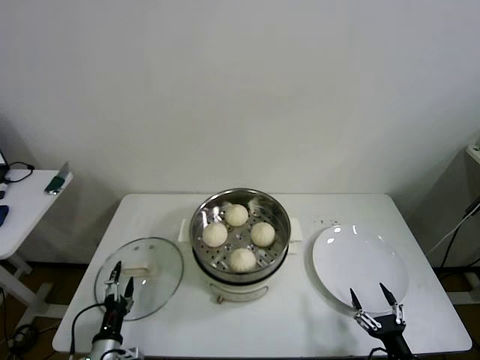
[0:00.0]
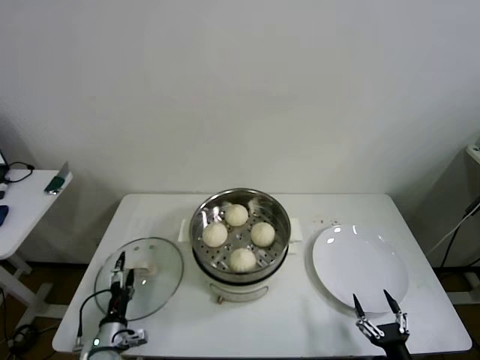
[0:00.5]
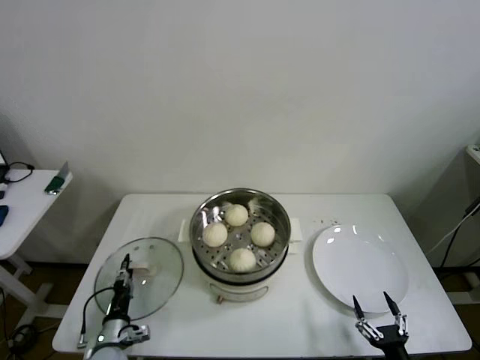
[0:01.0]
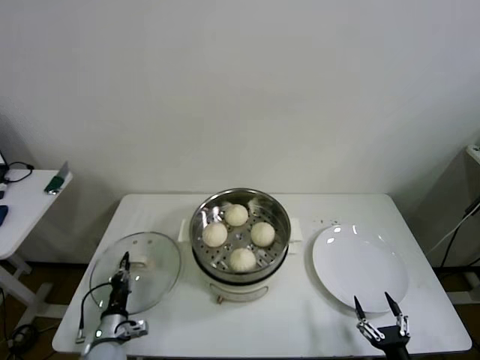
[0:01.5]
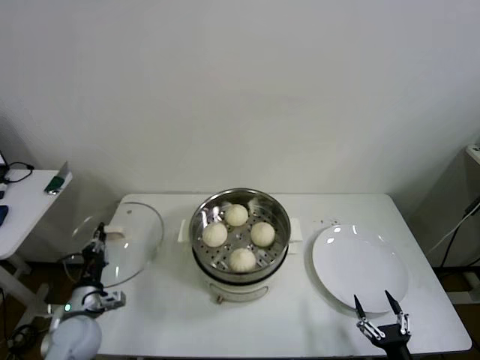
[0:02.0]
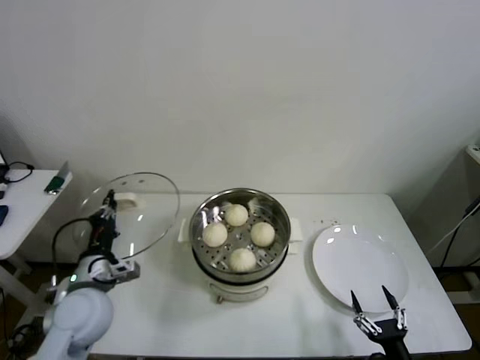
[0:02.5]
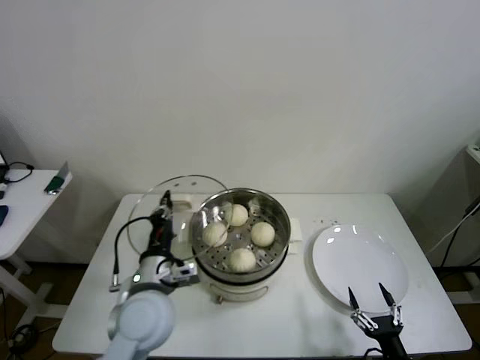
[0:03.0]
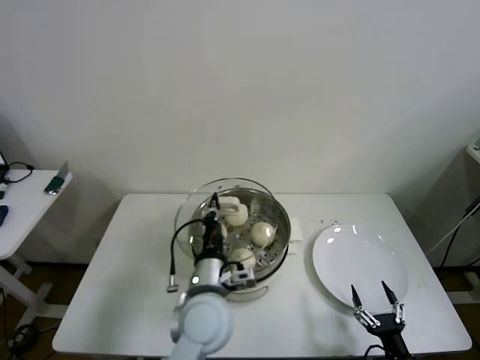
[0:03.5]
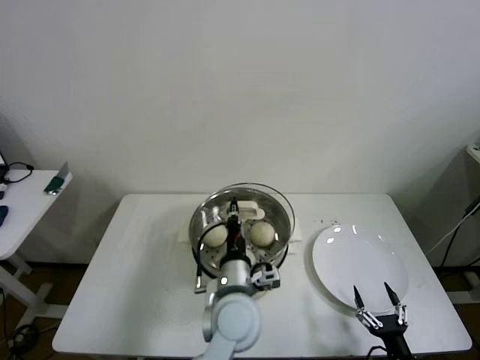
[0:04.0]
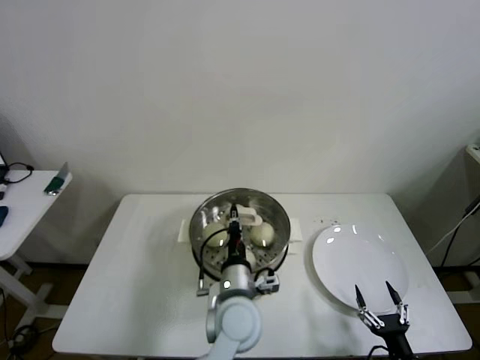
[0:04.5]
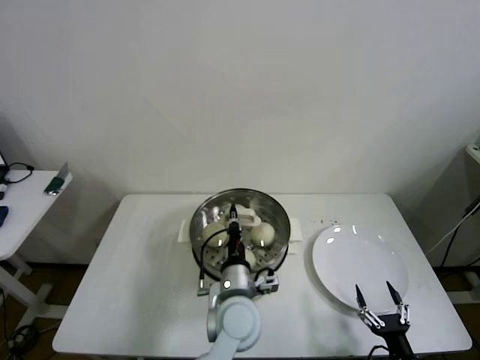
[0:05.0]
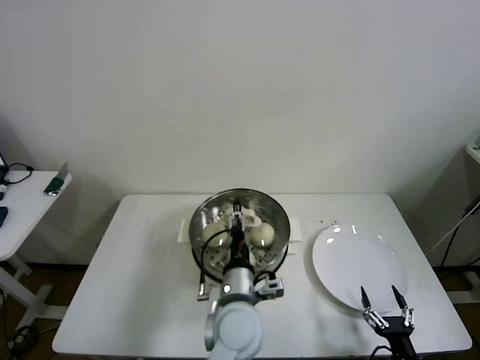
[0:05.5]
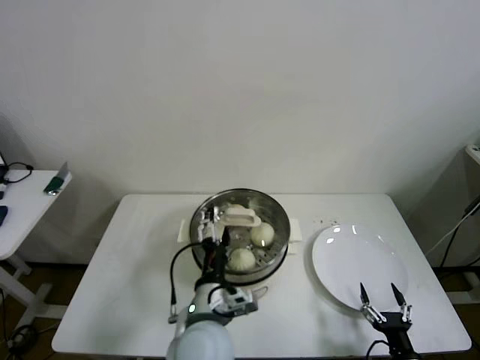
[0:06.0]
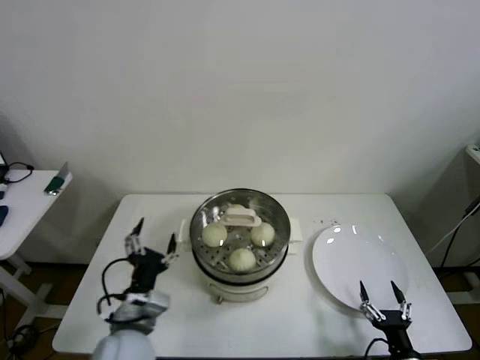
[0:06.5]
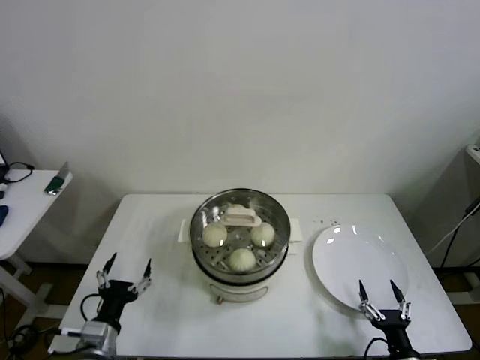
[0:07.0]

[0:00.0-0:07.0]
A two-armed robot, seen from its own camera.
Step, 1.5 to 5.5 s: Place the pot lid on the steamer with left gripper.
0.0 to 2.0 s: The left gripper moves forward and upward, approximately 10 cm, and closes its fingers.
2.0 to 3.5 s: The left gripper travels to the right and upward by approximately 30 cm.
3.5 to 5.0 s: The left gripper moves to the right and downward, roughly 10 cm.
5.0 to 7.0 s: The left gripper shifts roughly 30 cm to the left, and opens.

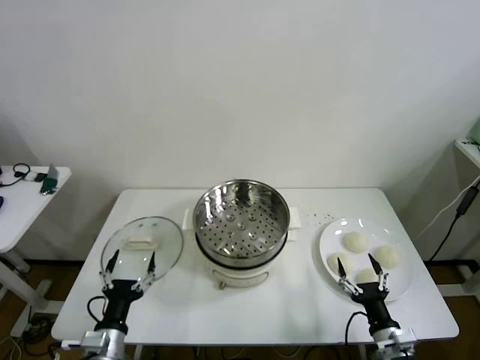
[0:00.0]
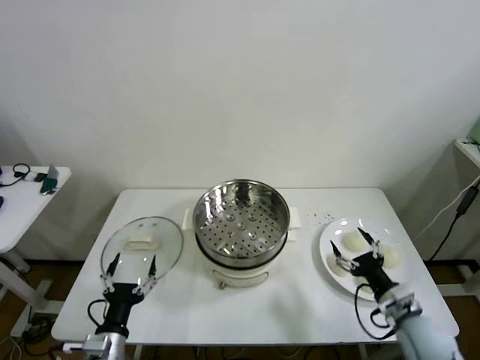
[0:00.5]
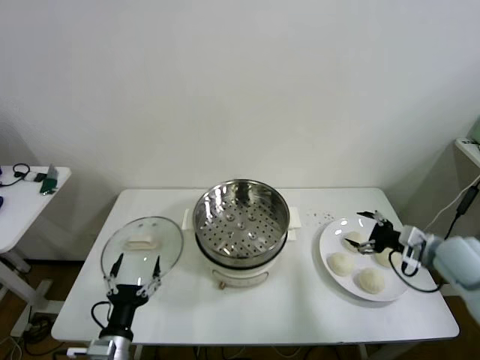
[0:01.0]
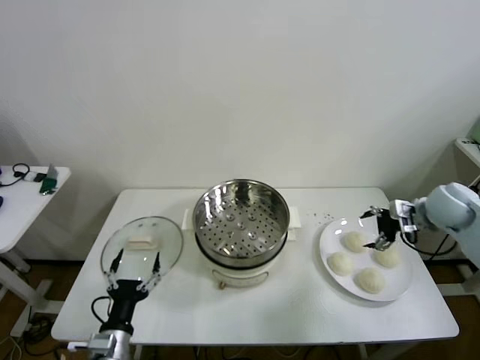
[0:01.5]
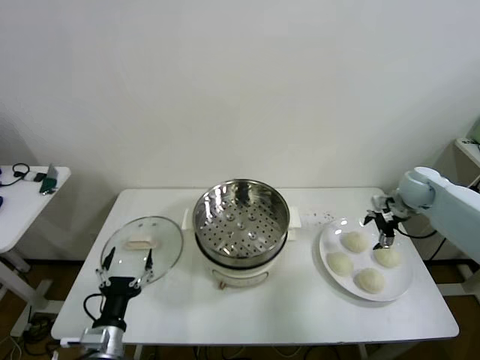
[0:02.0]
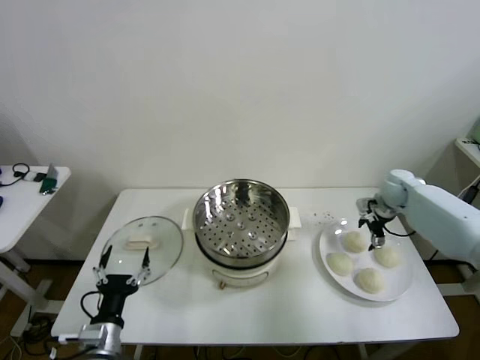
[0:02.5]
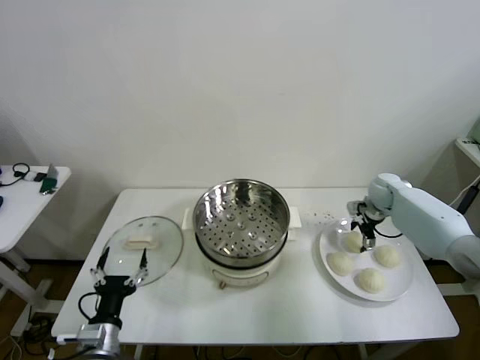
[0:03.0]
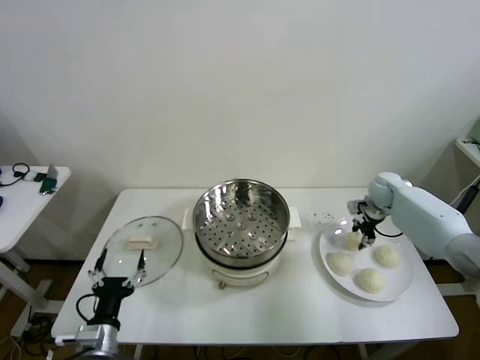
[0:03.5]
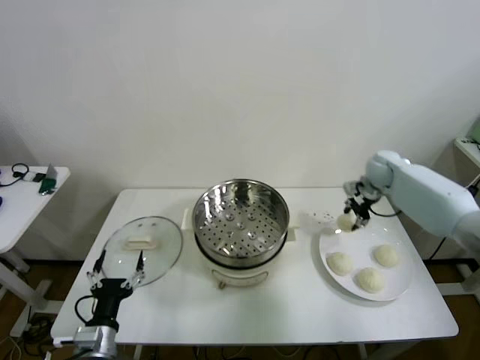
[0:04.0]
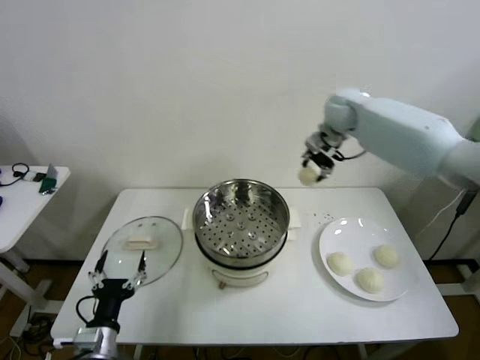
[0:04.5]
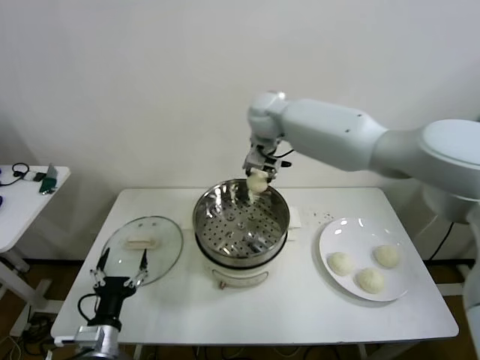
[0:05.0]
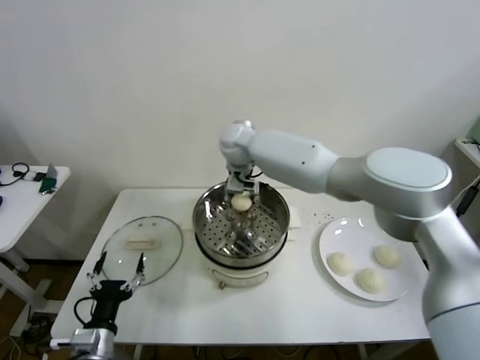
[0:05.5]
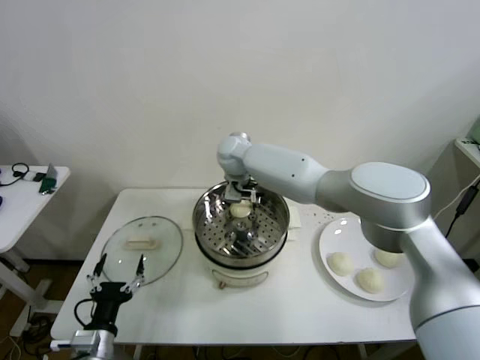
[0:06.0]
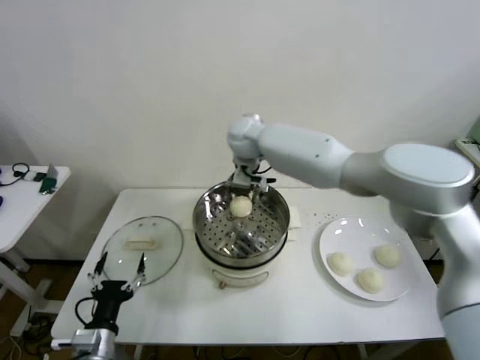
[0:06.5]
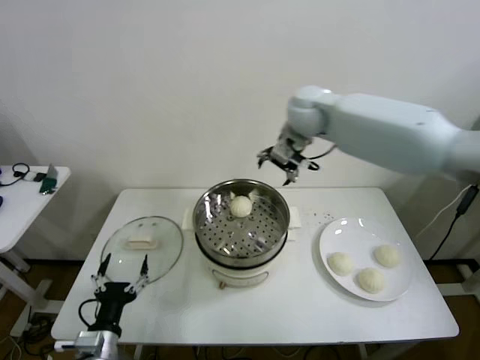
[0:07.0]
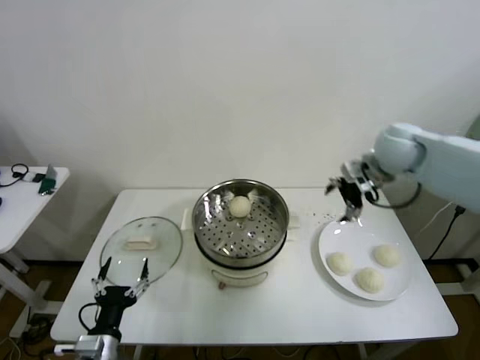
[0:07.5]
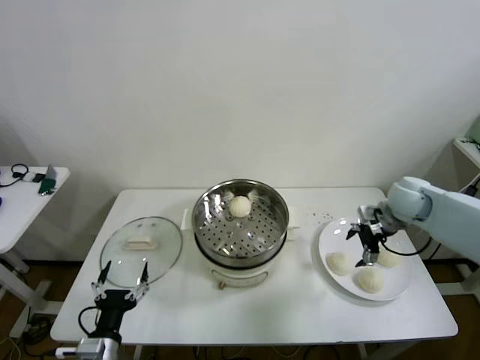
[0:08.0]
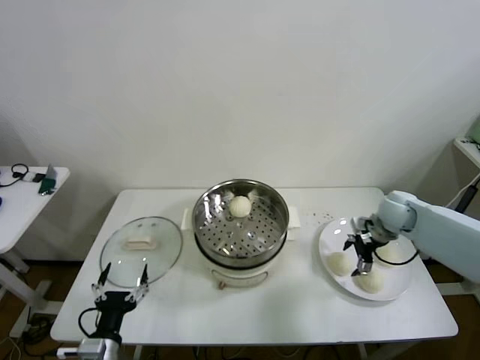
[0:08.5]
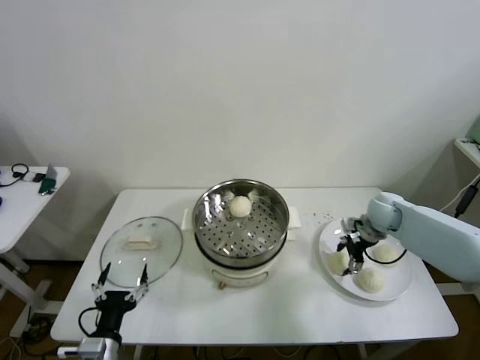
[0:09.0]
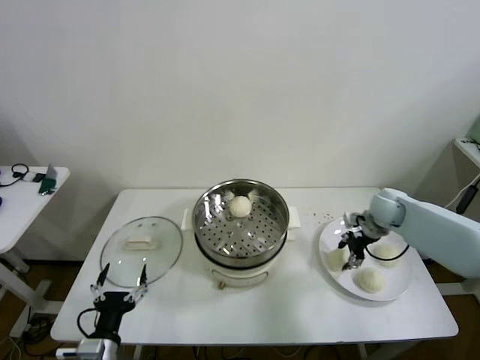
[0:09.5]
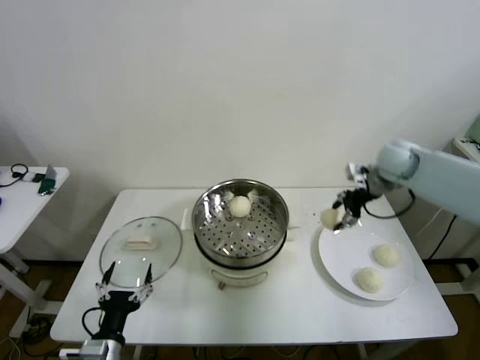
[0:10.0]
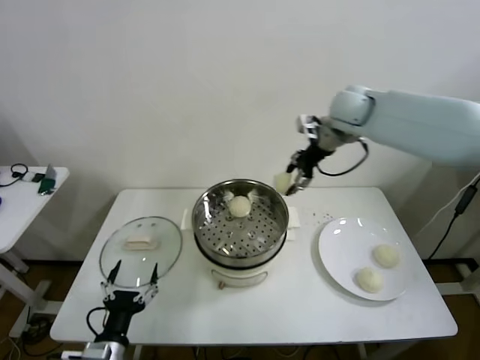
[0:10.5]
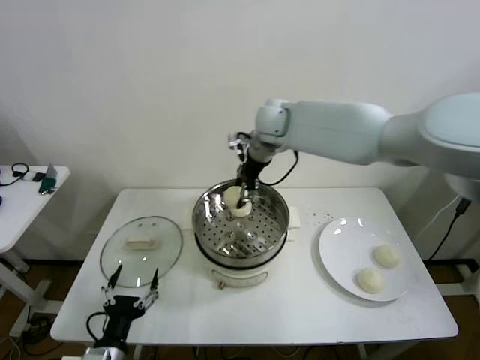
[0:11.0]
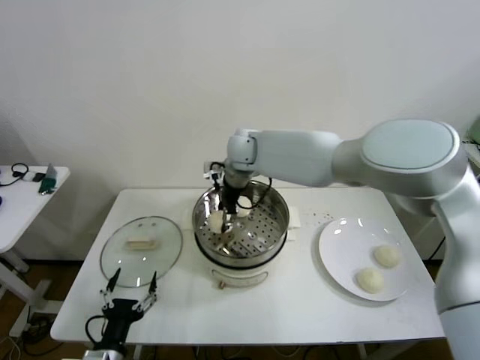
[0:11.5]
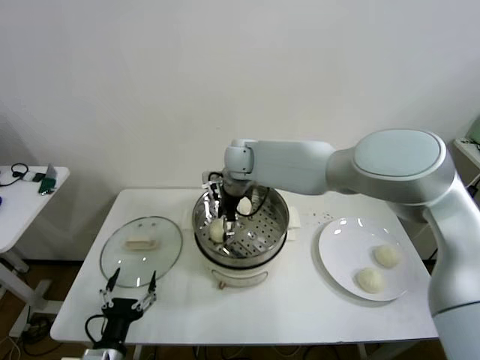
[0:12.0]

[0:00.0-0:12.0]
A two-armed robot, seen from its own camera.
Step, 0.0 to 3.0 s: Grasp the baozi in the plate with right gripper.
Step, 3.5 to 6.0 s: Place the baozi on the steamer with right gripper.
Step, 6.5 to 9.0 s: Grasp the baozi in the plate with right gripper.
Step, 9.5 to 11.5 s: Place the baozi on the steamer with right gripper.
2.0 to 4.0 s: The right gripper goes approximately 10 cm to the left and forward, and closes up.
4.0 to 6.0 s: The right gripper travels to the left by approximately 40 cm, and opens its fingers.
6.0 to 8.0 s: The right gripper shifts about 40 cm to the right.
8.0 to 10.0 s: The right gripper moves upward and forward, some 15 cm, and closes up.
10.0 to 12.0 s: The right gripper is displaced to the left by about 35 cm, and opens its fingers.

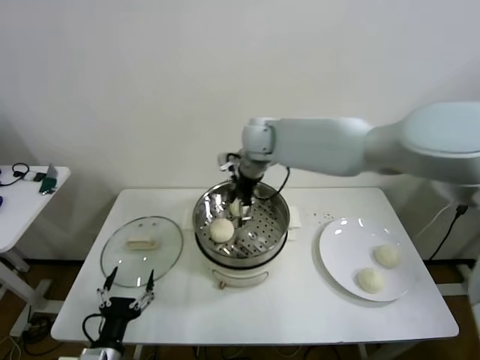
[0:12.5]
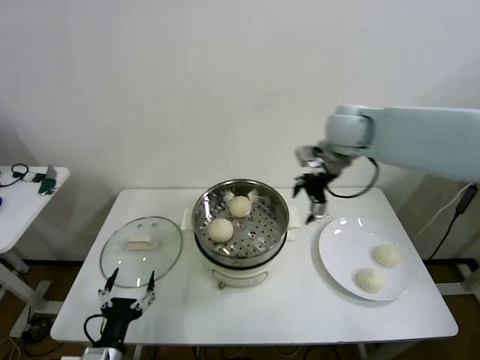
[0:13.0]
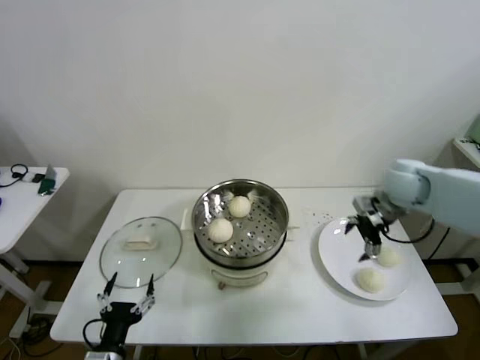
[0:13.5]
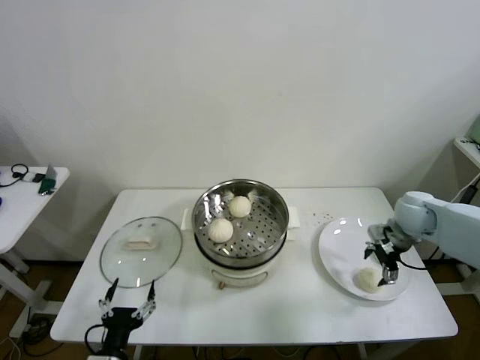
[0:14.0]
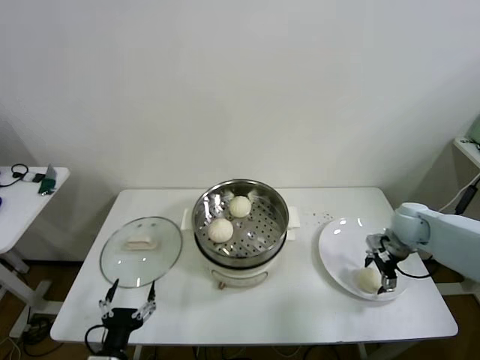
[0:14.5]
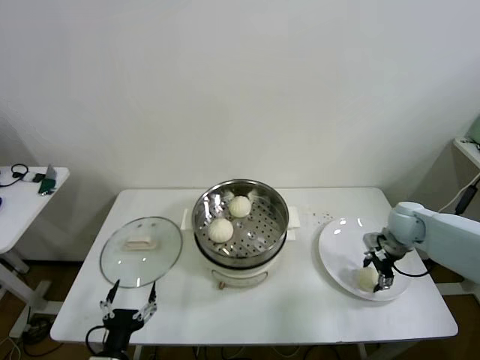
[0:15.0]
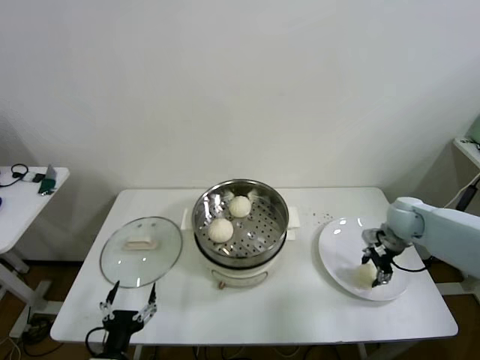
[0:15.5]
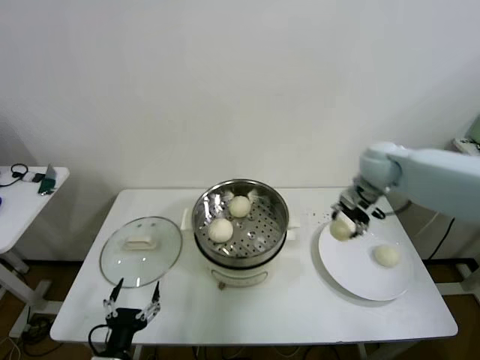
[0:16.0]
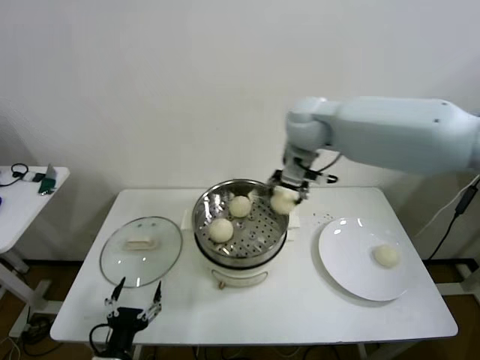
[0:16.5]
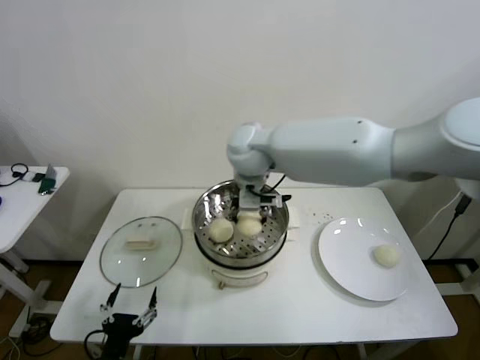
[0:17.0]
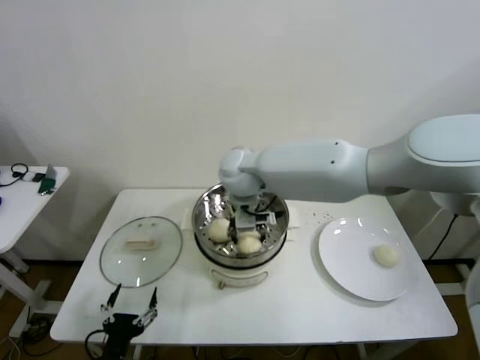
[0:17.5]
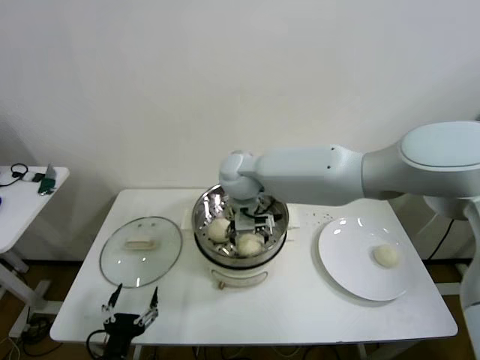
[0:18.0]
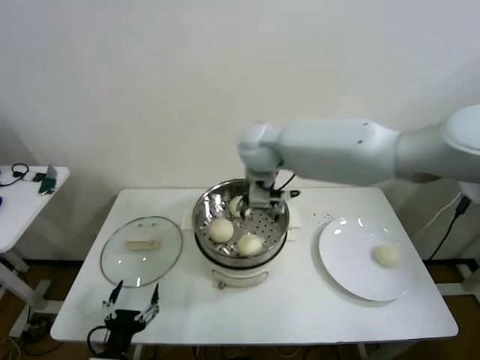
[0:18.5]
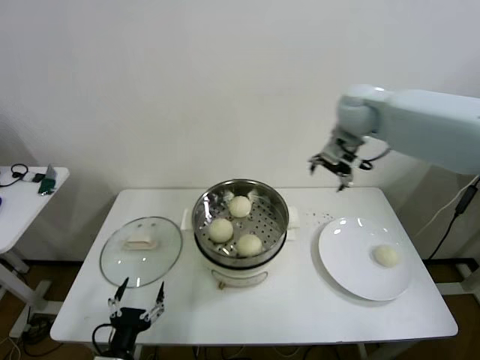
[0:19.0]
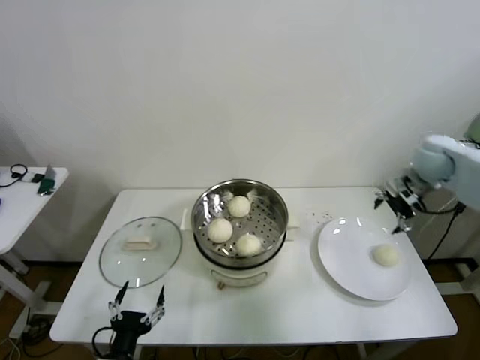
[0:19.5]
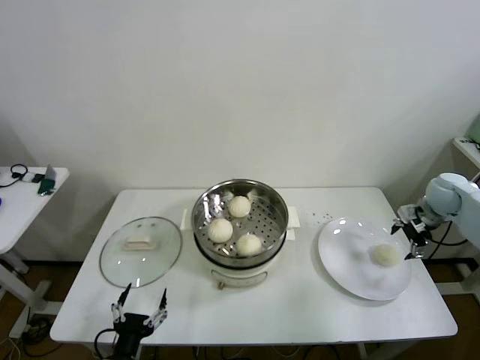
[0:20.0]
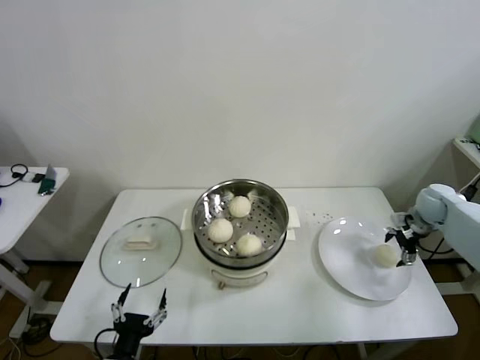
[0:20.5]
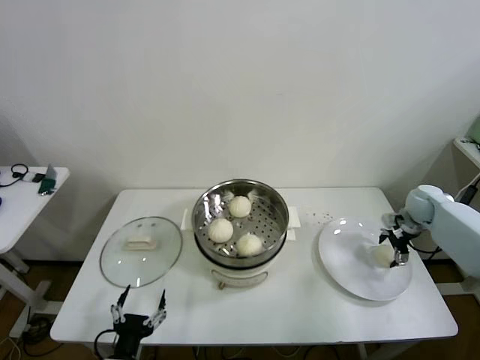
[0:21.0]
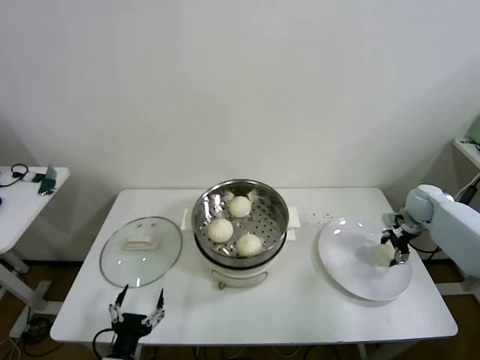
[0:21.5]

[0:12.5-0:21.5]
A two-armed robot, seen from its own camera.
Step, 12.5 to 15.0 s: Grasp the baozi in the plate with right gripper.
Step, 15.5 to 17.5 s: Place the baozi on the steamer with right gripper.
Step, 18.0 to 21.5 s: Grasp the baozi in the plate with right gripper.
12.5 to 14.5 s: The right gripper shifts about 40 cm to the right and downward.
14.5 to 17.0 s: The right gripper heads to the left and upward, covering roughly 50 cm, and closes.
17.0 to 19.5 s: The right gripper moves to the right, roughly 40 cm, and opens.
19.5 to 21.5 s: The right gripper goes some 15 cm downward, and closes its fingers.
